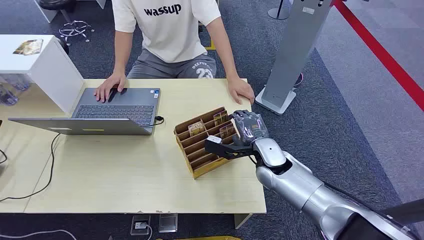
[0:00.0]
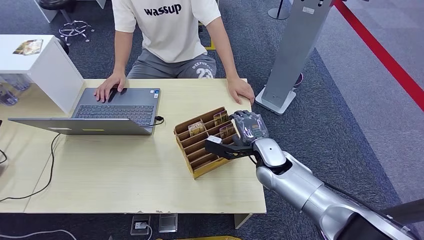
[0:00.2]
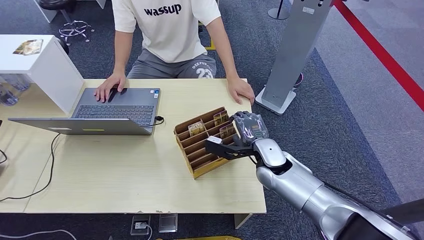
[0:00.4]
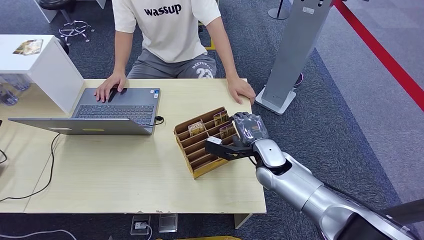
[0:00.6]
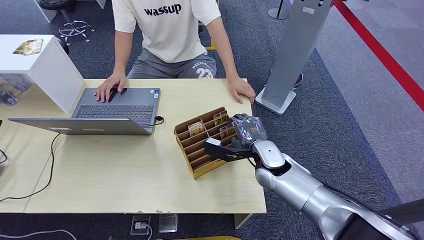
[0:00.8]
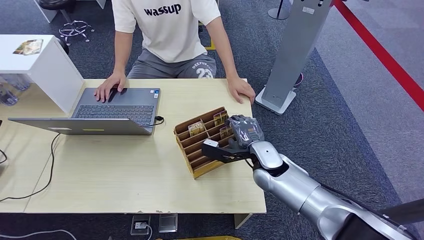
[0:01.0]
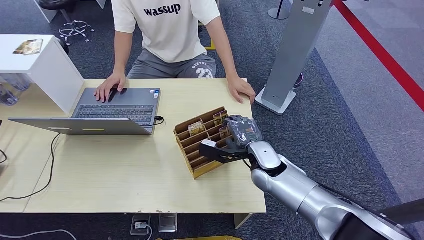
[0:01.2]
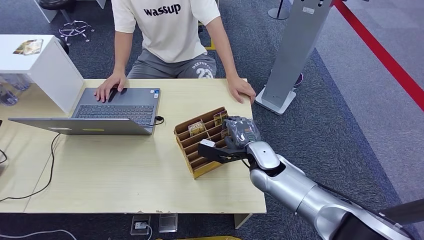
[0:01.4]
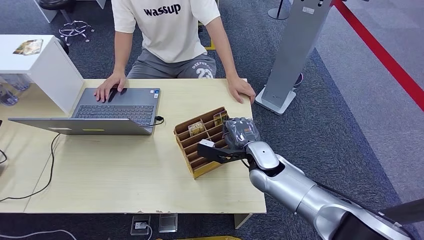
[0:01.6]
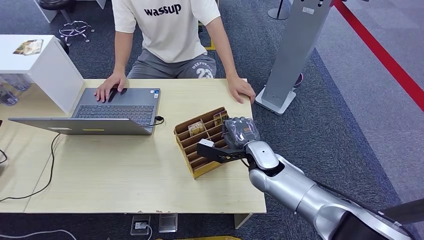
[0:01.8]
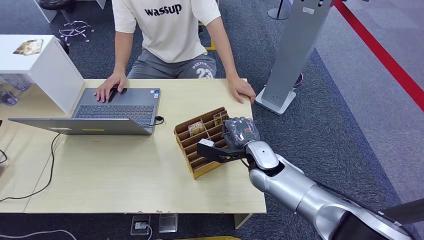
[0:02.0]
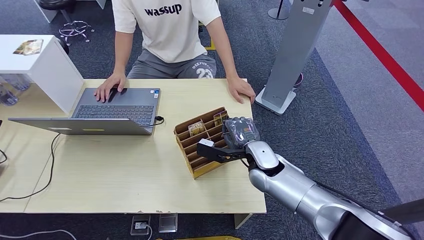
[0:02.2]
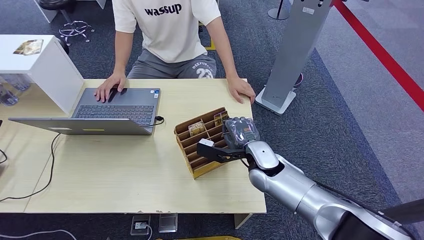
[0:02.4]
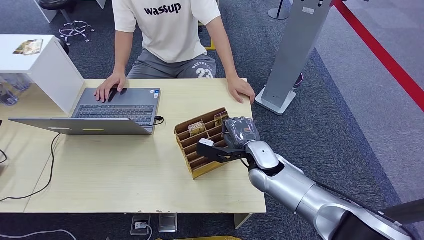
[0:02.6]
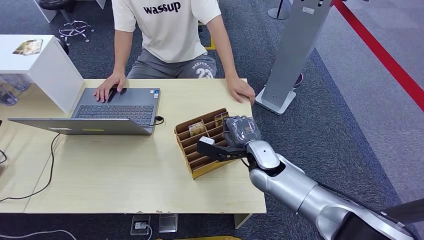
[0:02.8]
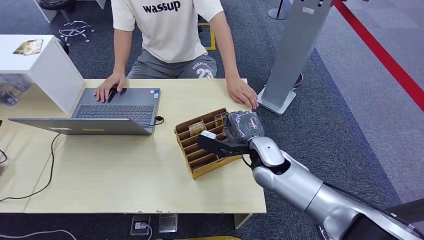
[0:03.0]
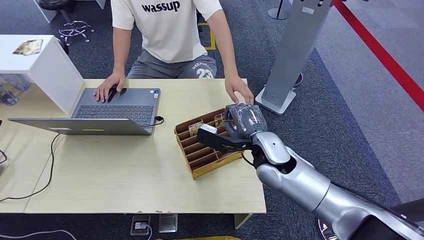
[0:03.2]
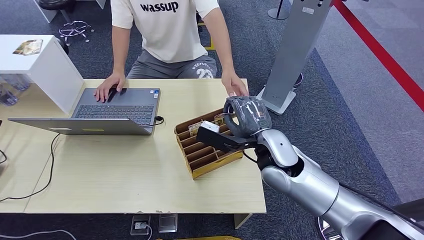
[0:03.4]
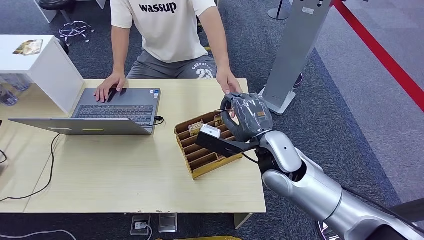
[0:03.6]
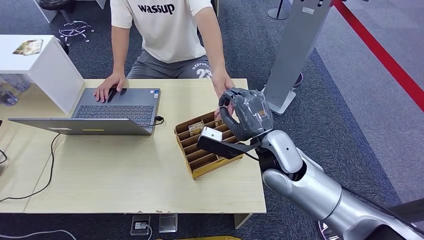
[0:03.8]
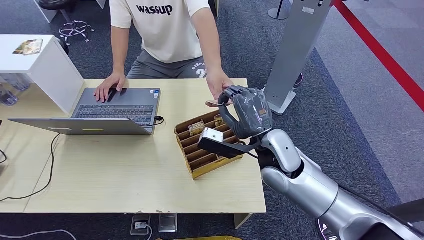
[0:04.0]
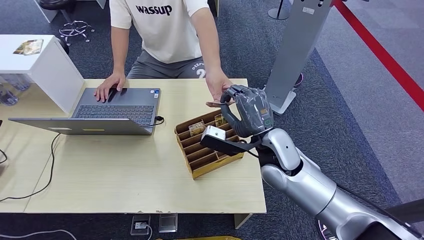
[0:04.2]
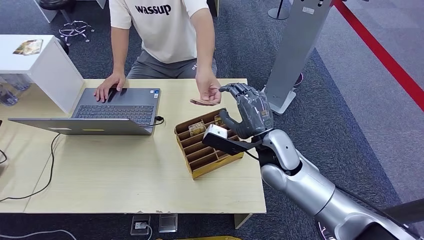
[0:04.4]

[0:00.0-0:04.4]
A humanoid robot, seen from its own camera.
Step, 0:00.0 to 0:03.2: Pick up the room card from the card holder.
Step, 0:03.8 to 0:04.4: Hand the room card to the target.
0:01.4 to 0:03.0: The right hand heads upward, covering approximately 10 cm.
0:03.0 to 0:04.4: The right hand shifts by roughly 5 cm.
